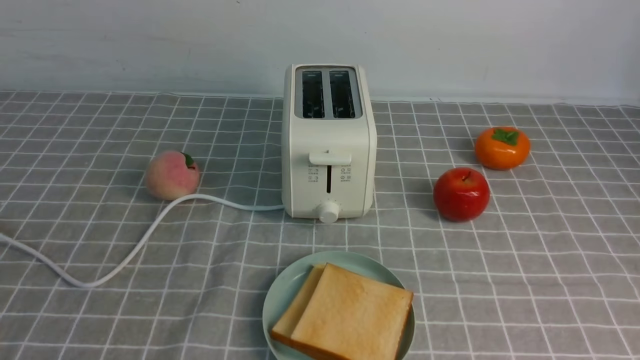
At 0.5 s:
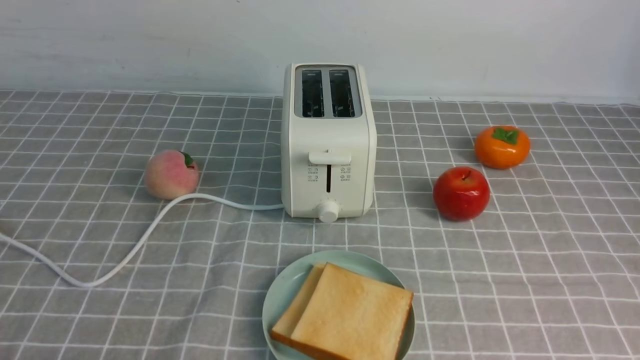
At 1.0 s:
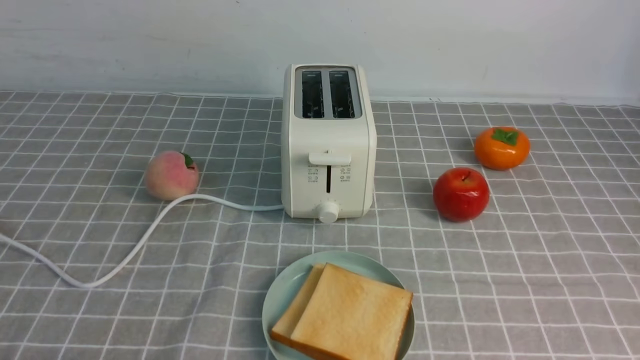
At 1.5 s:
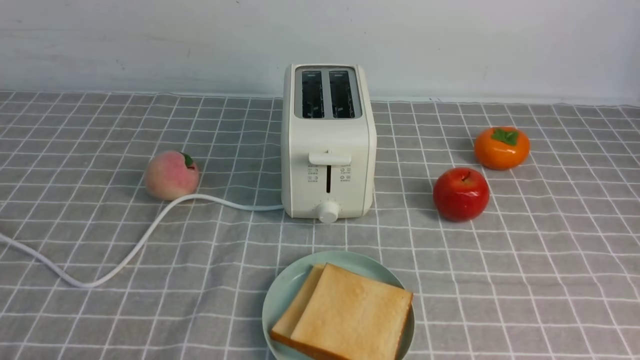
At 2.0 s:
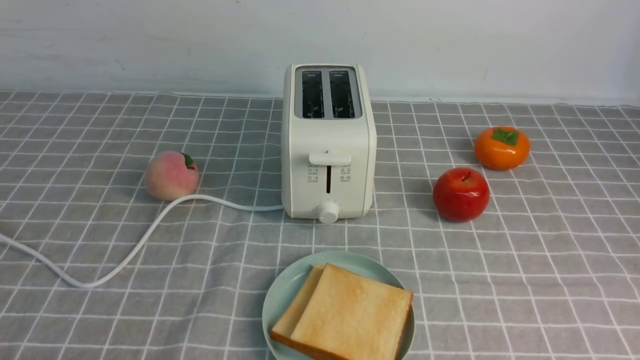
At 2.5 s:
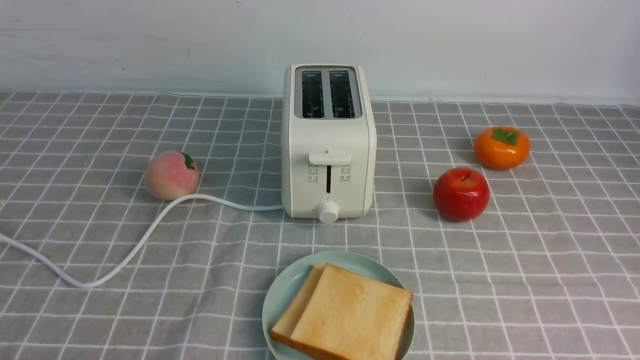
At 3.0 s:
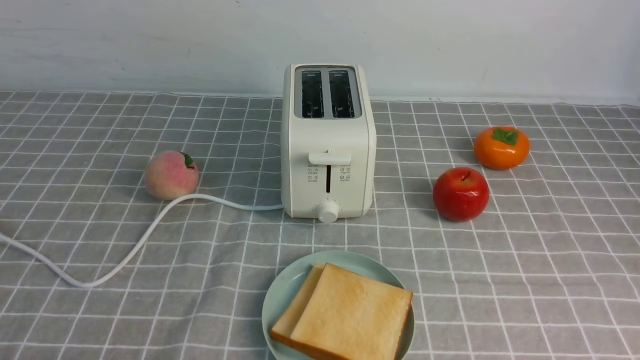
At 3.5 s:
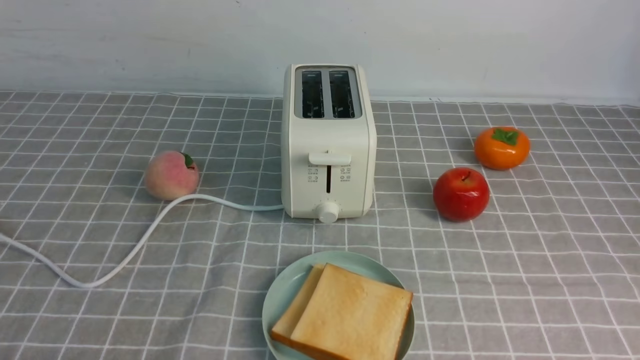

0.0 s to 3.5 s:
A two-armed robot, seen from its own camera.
Task of the whole recording: take toasted bread from bread machine on grey coffee table place on plate.
0.0 to 2.0 s: The left gripper shifts some 15 cm downward.

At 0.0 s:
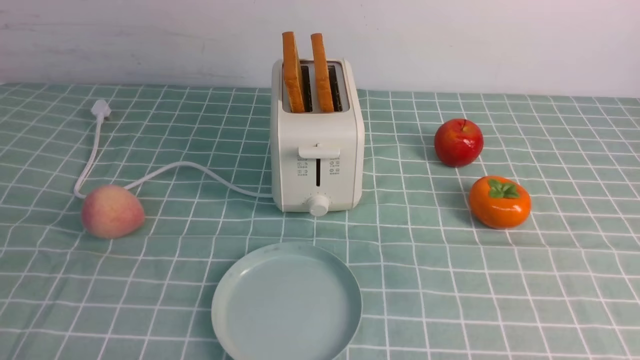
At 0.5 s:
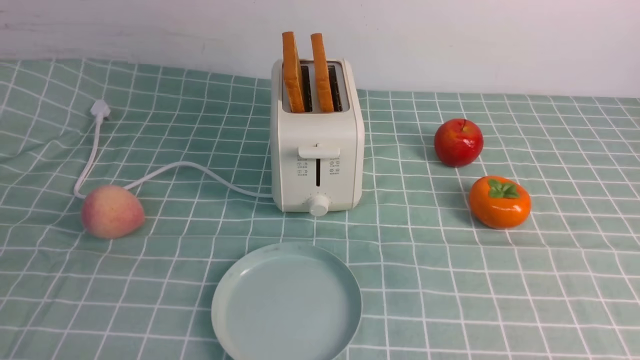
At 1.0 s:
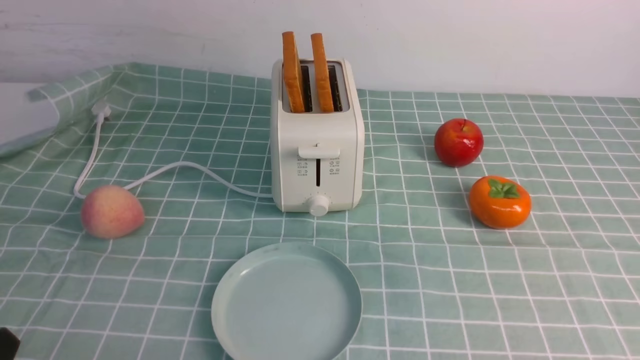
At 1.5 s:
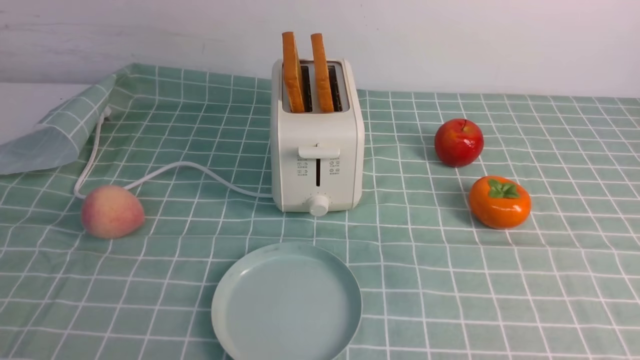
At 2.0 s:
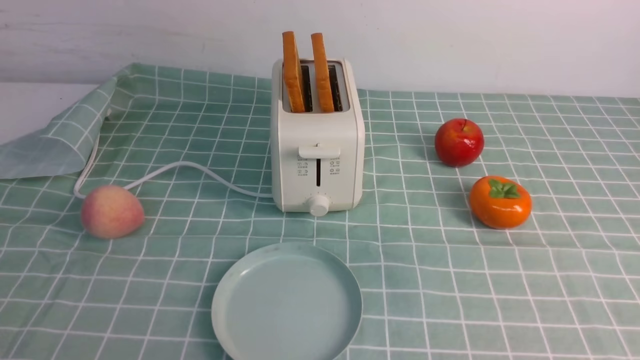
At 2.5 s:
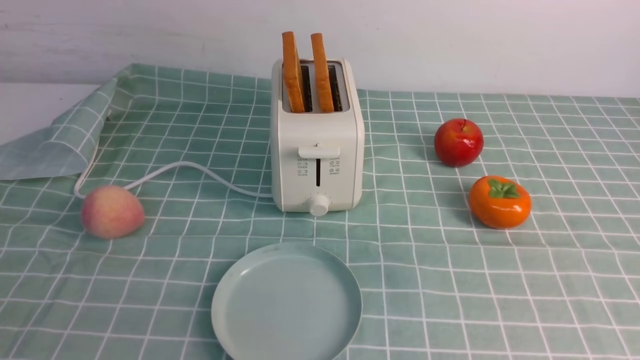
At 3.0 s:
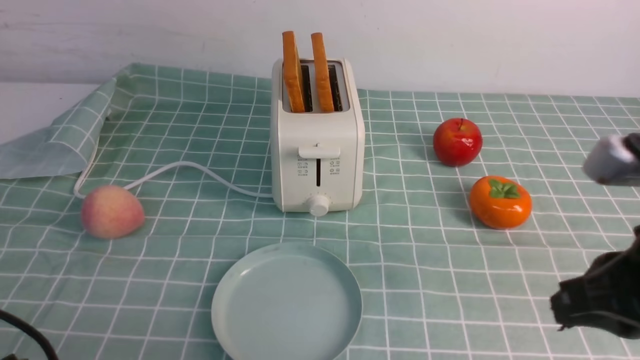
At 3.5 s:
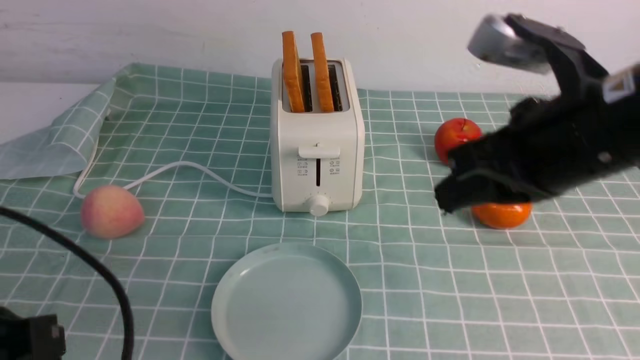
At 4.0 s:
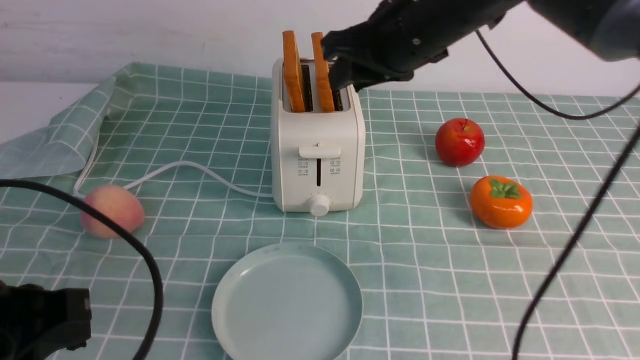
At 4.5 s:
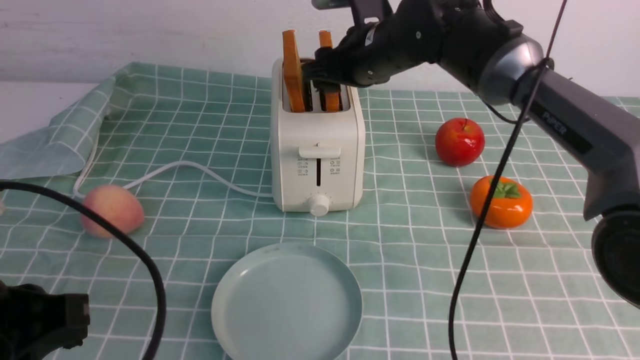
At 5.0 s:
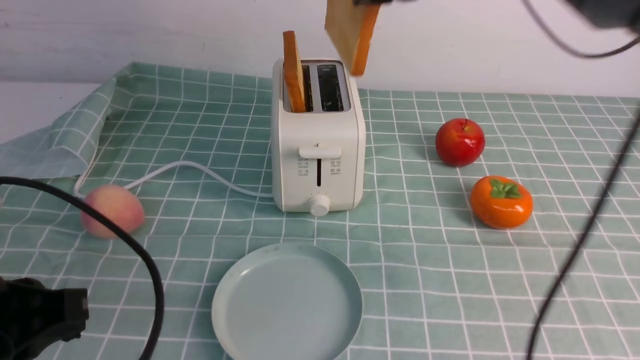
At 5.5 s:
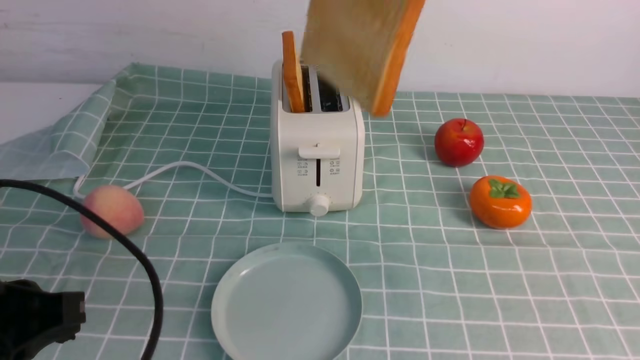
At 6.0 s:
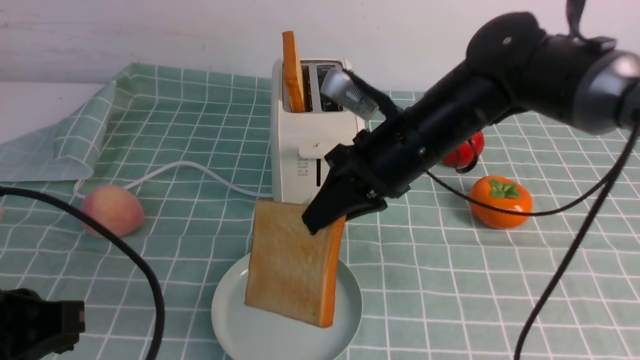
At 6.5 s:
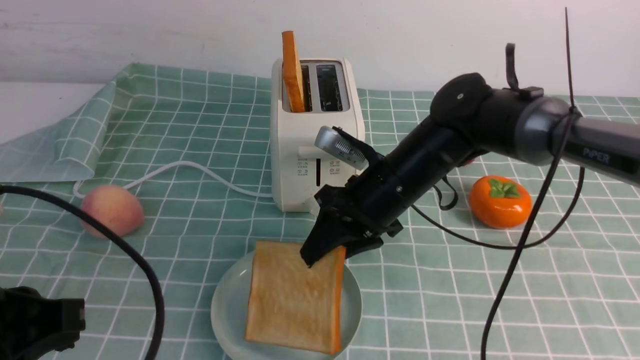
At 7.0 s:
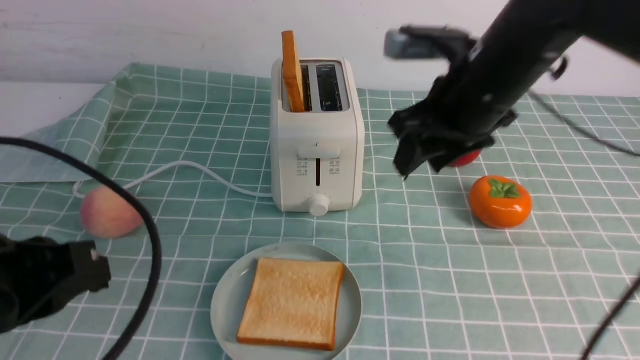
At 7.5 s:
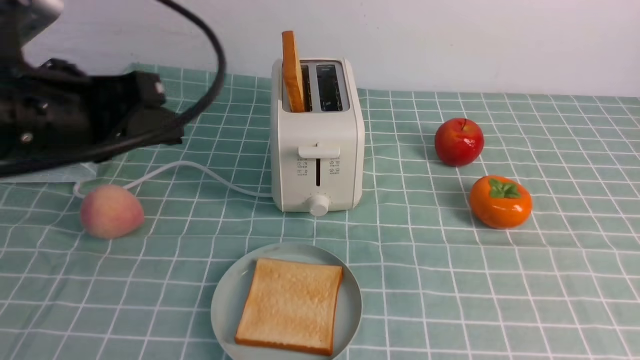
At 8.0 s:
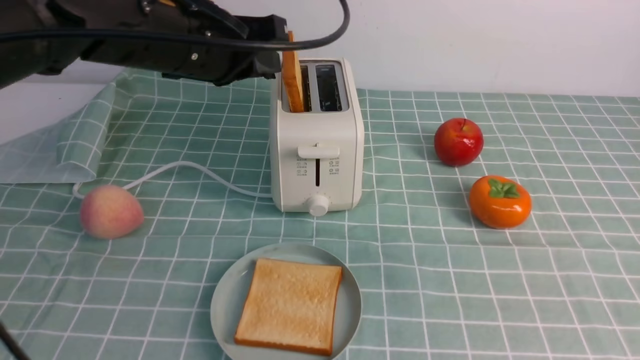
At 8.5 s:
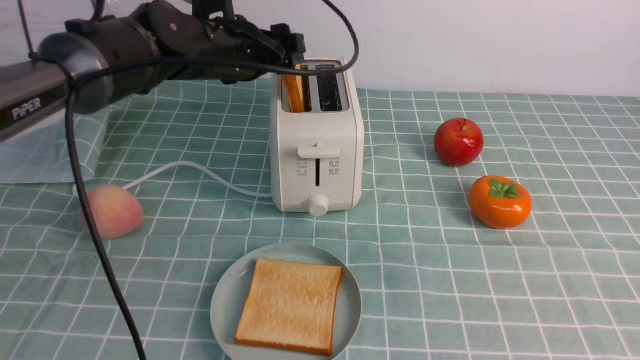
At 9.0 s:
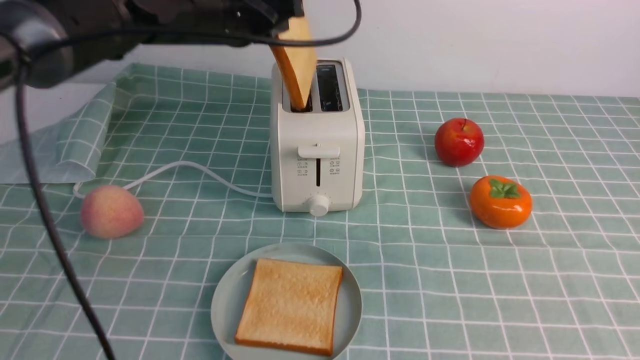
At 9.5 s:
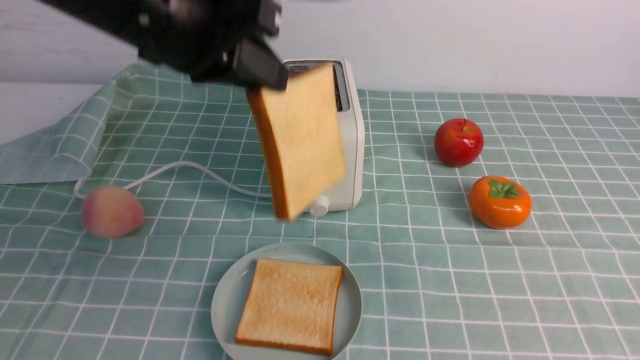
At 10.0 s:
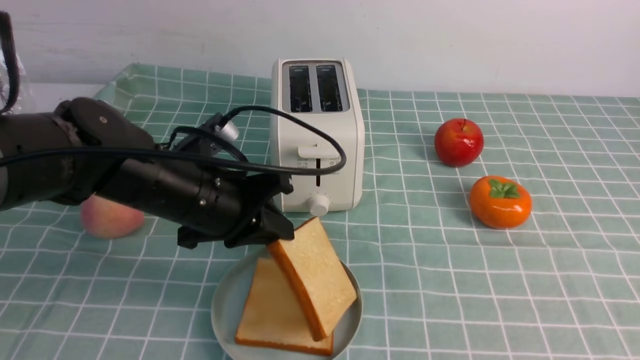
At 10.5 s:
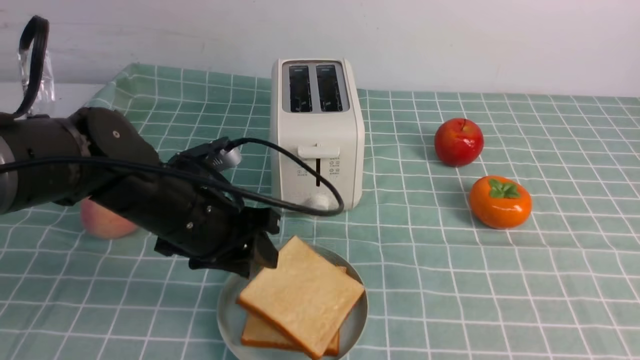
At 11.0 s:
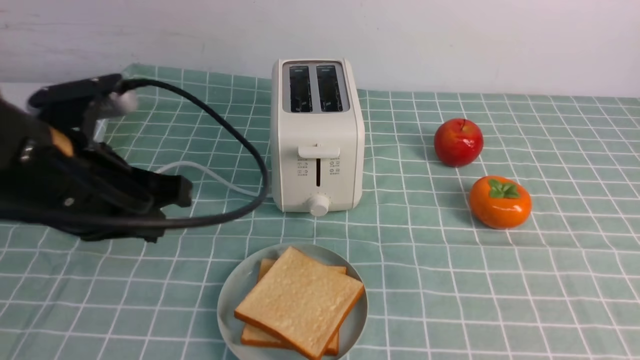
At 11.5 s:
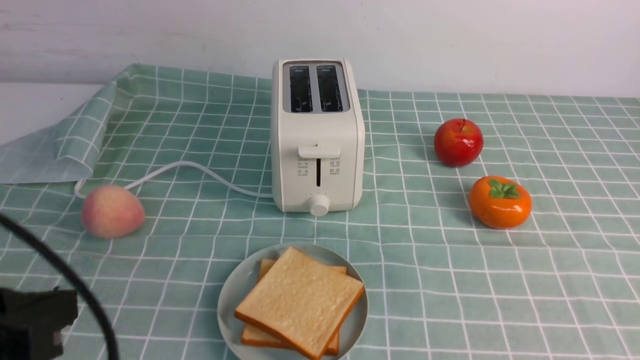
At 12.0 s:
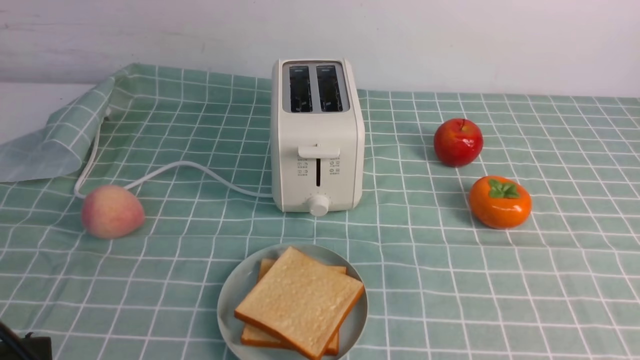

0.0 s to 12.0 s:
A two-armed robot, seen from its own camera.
Task of the whole recording: take toasted bread from bread machine on blue coffee table place on plate.
Step, 0.0 to 5.0 s: use the right arm to take out a slice of bread.
Step, 5.5 to 7.0 s: use the right arm to put a slice of bread into the plate.
Step, 7.5 to 9.0 s: use the left arm to take out a slice of bread.
Step, 9.5 to 10.5 s: use the left arm to put a slice of bread into the empty plate.
0.0 to 2.0 s: The left gripper moves upward, about 5 cm.
2.0 to 4.0 s: The left gripper shifts some 10 cm forward and upward, and closes up; the right gripper is displaced forward and to the left by approximately 40 cm, and closes, then opens again.
4.0 to 6.0 s: The right gripper moves up and down over about 20 cm, changing direction 2 times, and closes.
6.0 to 8.0 s: The left gripper heads forward and to the right, covering about 25 cm, and opens its fingers, while the right gripper is displaced backward and to the right by some 40 cm, and opens, then closes once more.
8.0 to 10.0 s: The left gripper goes about 15 cm downward and backward, and opens, then closes again.
10.0 to 12.0 s: The left gripper is displaced backward and to the left by roughly 25 cm, and opens, then closes once more.
